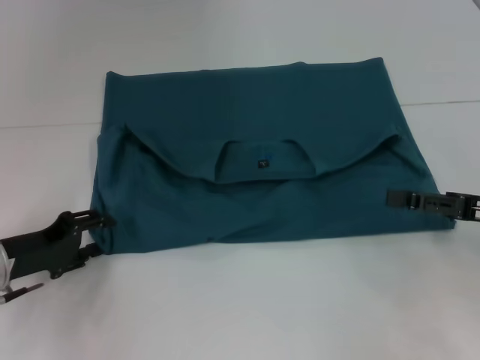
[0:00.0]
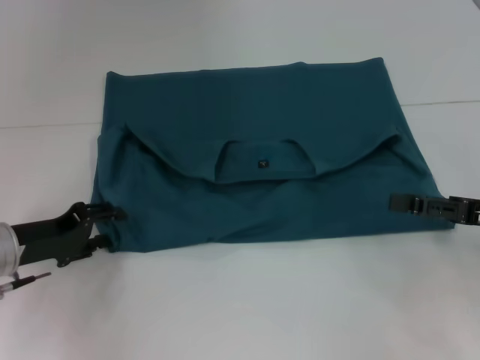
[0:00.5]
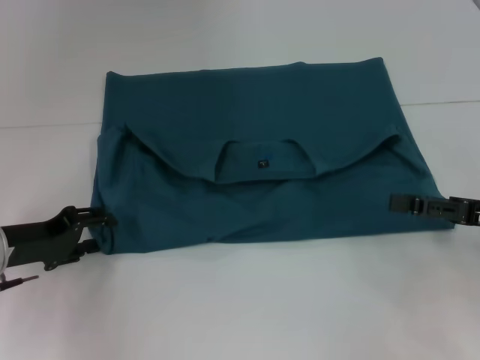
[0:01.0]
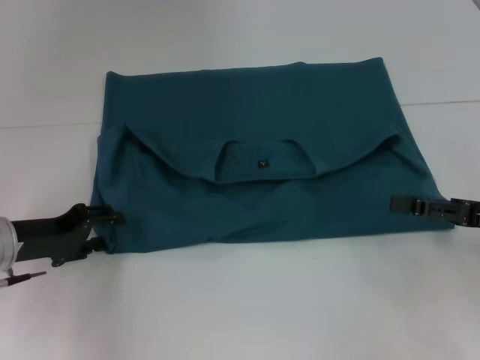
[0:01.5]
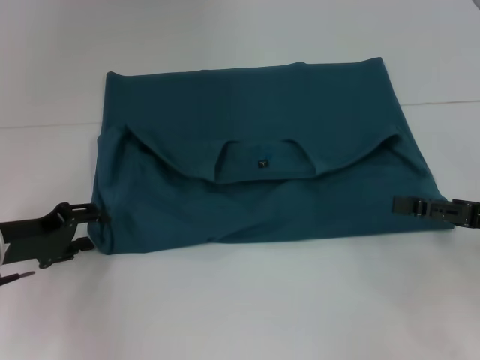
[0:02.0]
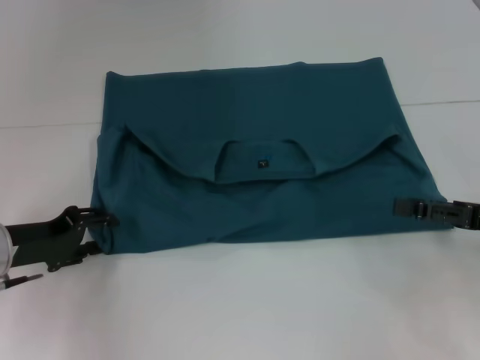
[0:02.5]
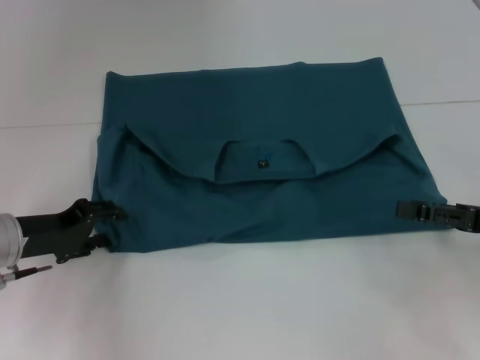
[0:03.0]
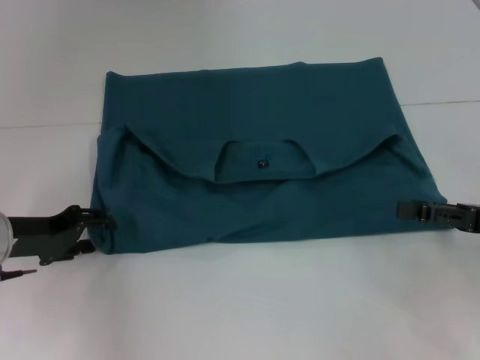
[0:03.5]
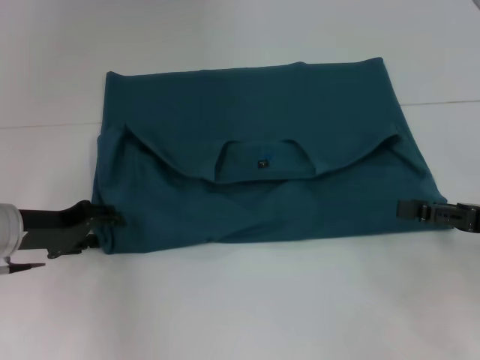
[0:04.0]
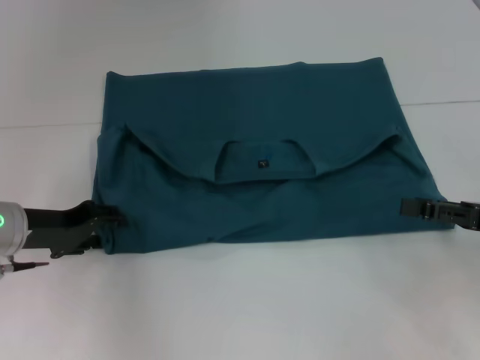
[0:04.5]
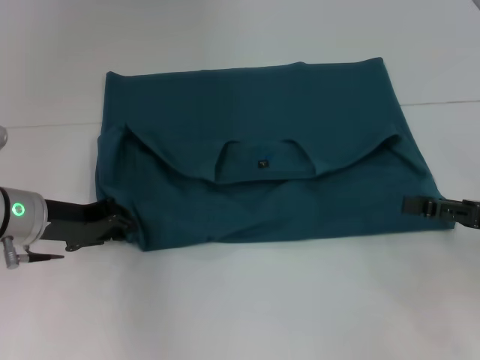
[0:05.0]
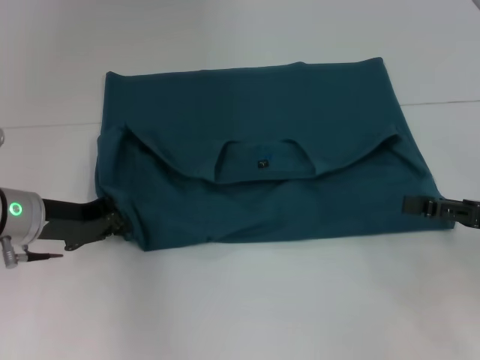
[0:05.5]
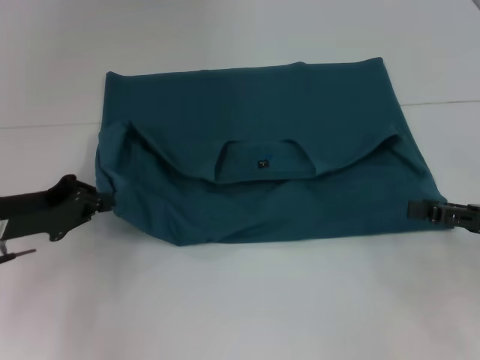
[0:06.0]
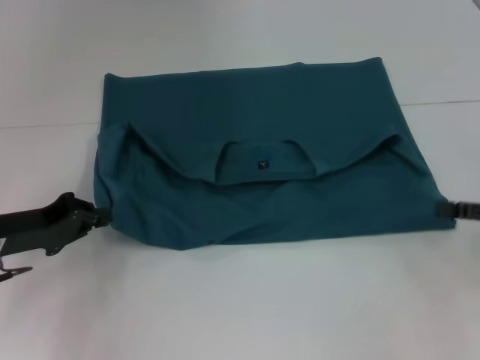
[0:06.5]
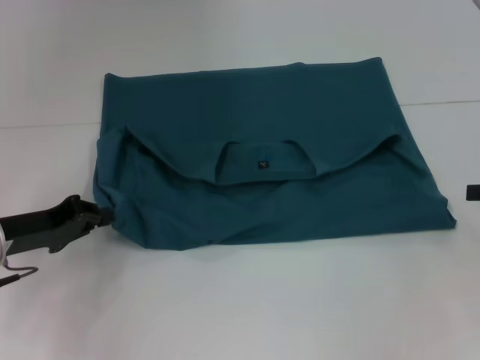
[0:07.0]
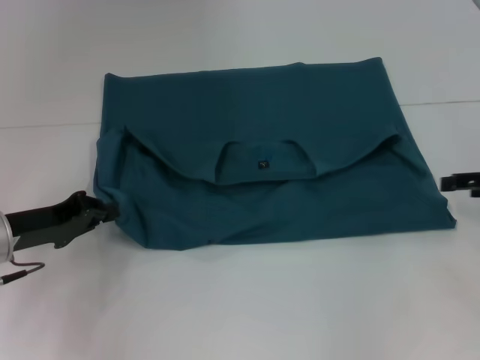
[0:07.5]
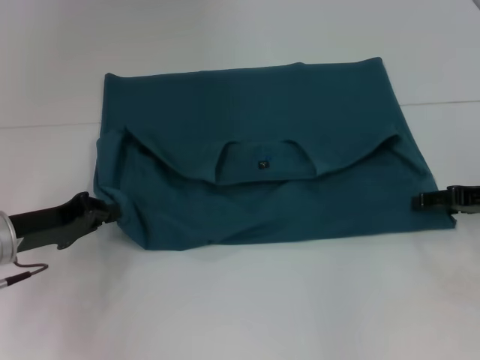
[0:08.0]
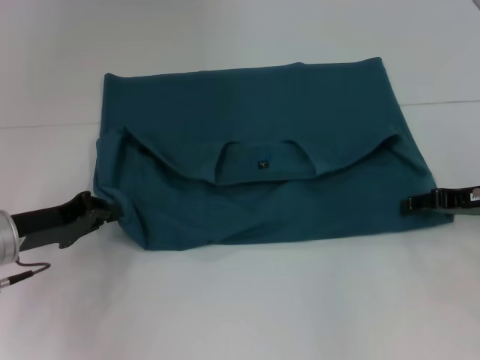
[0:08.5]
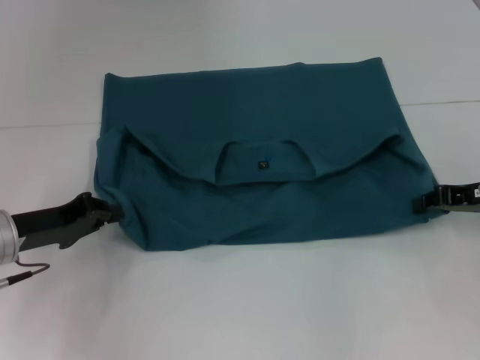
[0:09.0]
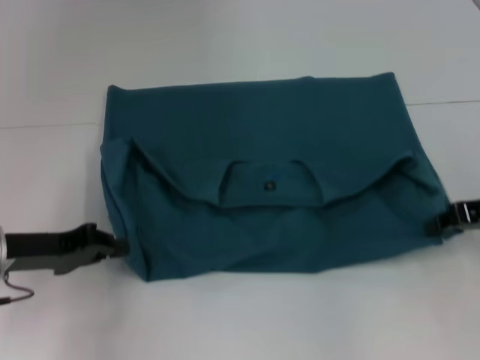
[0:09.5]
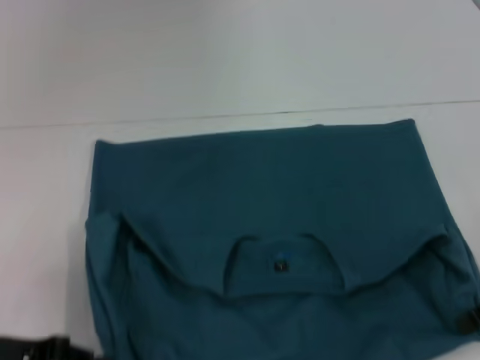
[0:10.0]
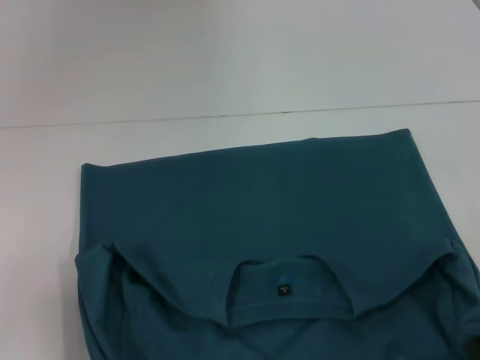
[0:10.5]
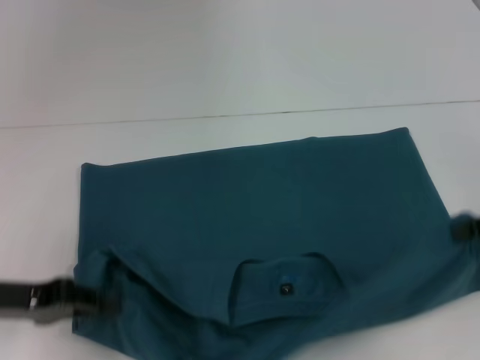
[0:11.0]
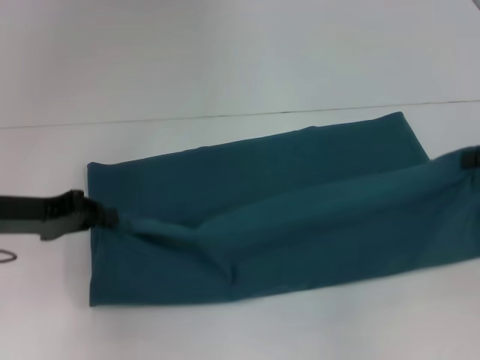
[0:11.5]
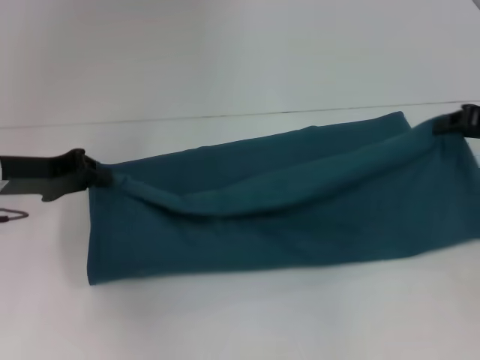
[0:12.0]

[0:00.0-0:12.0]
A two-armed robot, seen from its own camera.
Step, 0:00.0 to 0:10.5: Pull the clothes with your left hand.
Step, 0:00.0 to 0:10.5: Pull the clothes with your right hand.
0:00.0 to 0:02.0: The grippers stay close to where they were, moving slightly.
0:02.0 to 0:04.0: The grippers move only a little.
0:04.0 to 0:06.0: The left gripper closes up.
0:06.0 to 0:08.0: The right gripper heads forward, covering roughly 10 cm.
0:08.0 to 0:10.0: The grippers both shift backward by approximately 5 cm. The right gripper closes.
0:10.0 to 0:12.0: Both grippers travel together forward, approximately 10 cm.

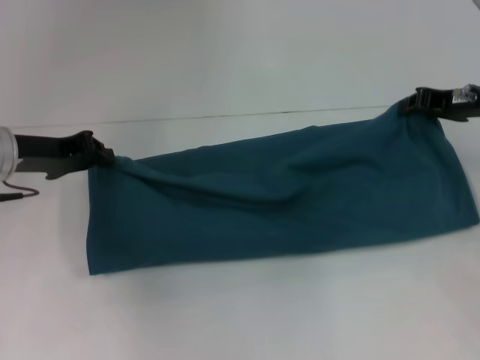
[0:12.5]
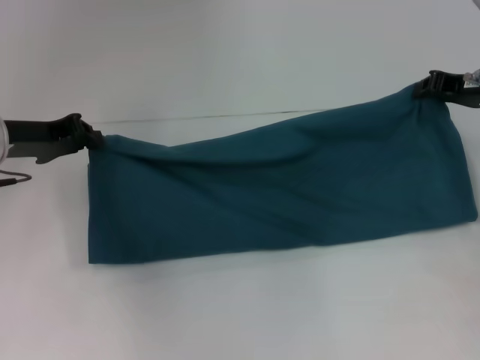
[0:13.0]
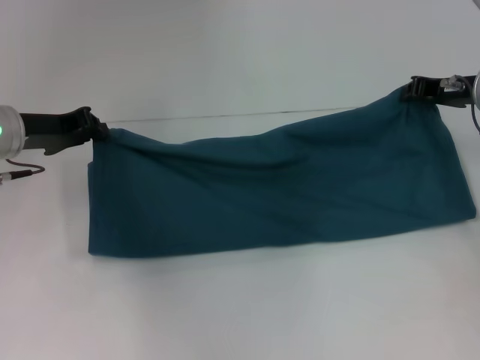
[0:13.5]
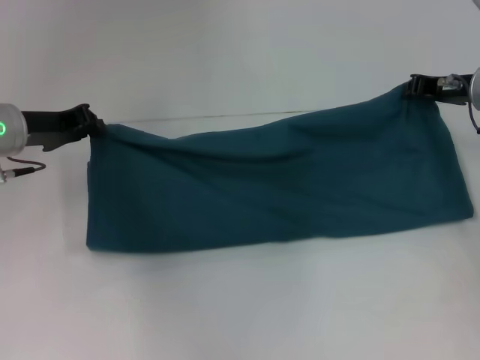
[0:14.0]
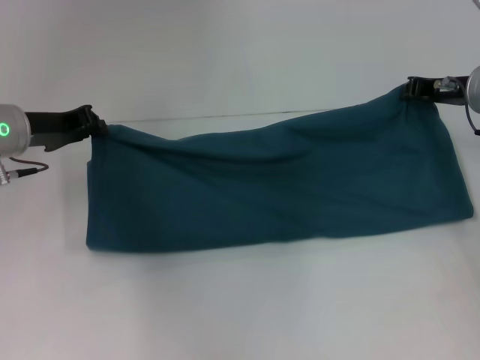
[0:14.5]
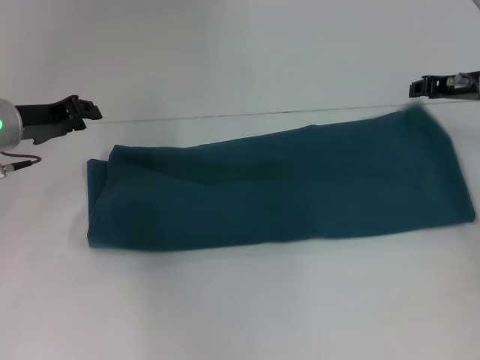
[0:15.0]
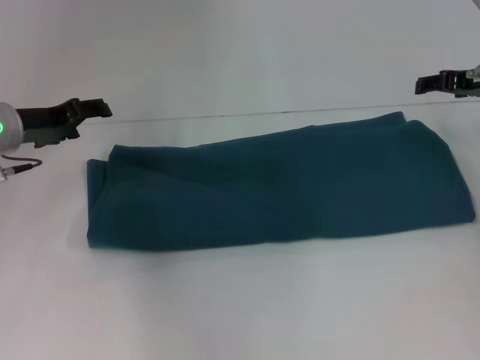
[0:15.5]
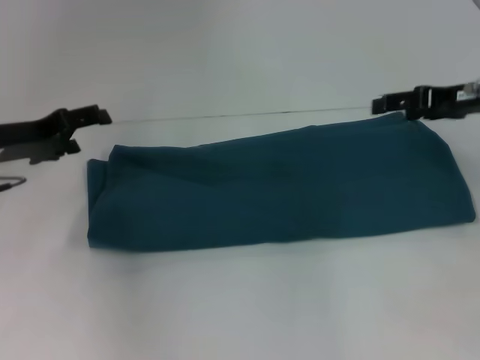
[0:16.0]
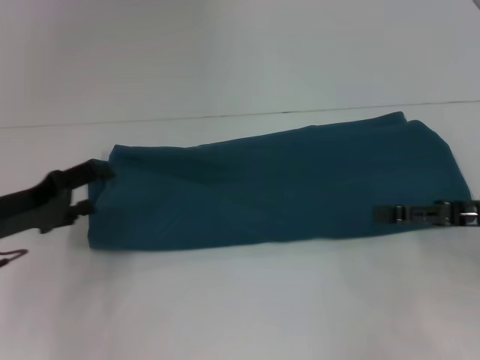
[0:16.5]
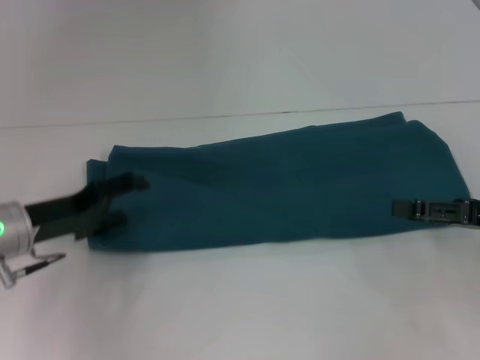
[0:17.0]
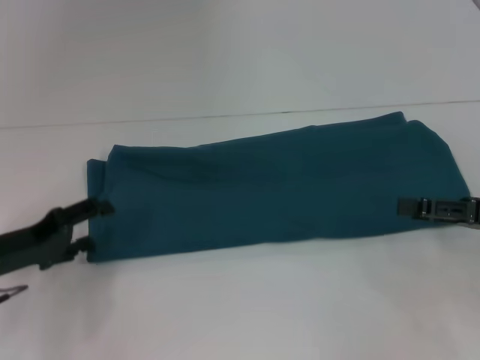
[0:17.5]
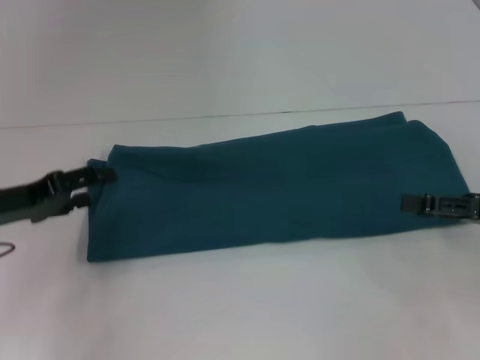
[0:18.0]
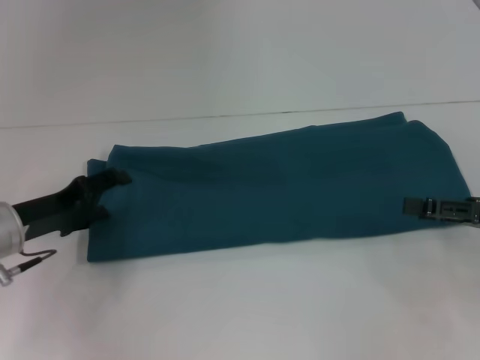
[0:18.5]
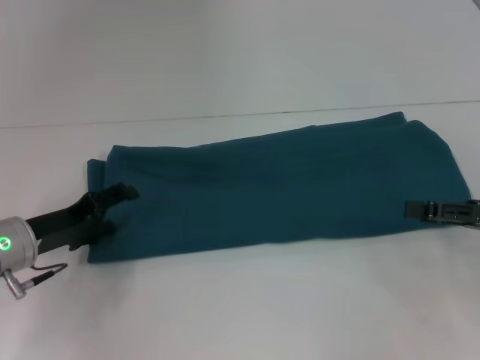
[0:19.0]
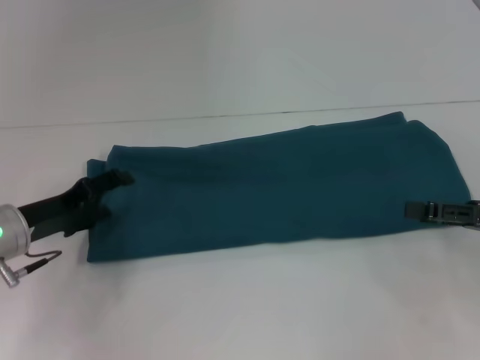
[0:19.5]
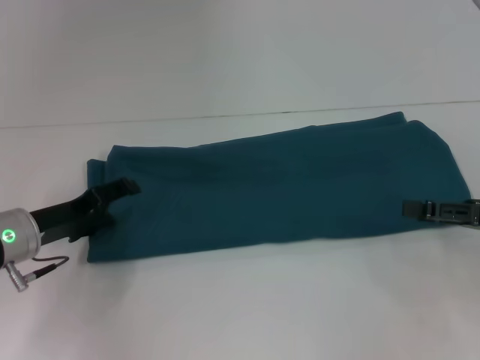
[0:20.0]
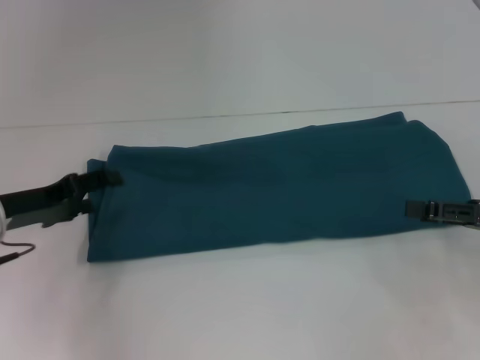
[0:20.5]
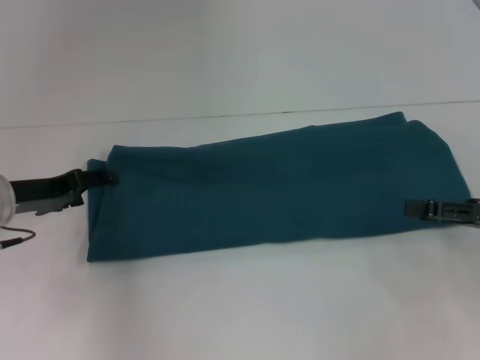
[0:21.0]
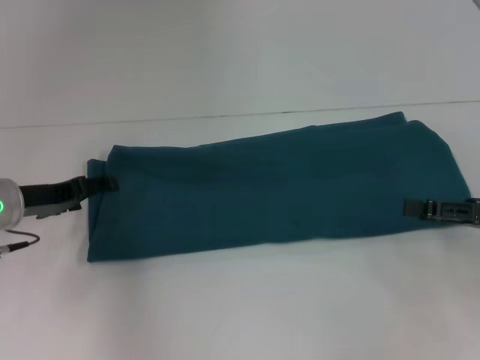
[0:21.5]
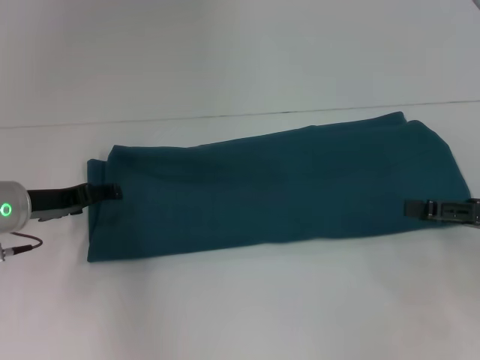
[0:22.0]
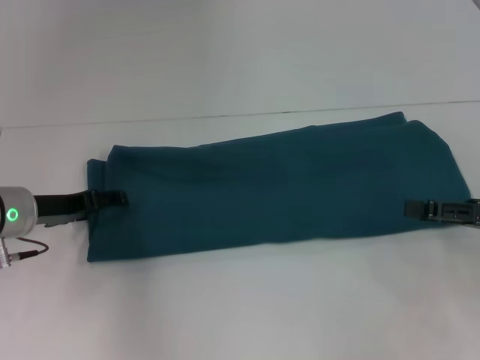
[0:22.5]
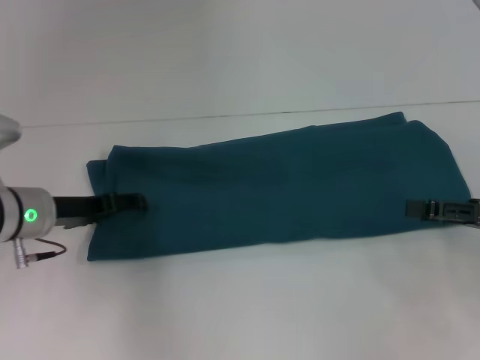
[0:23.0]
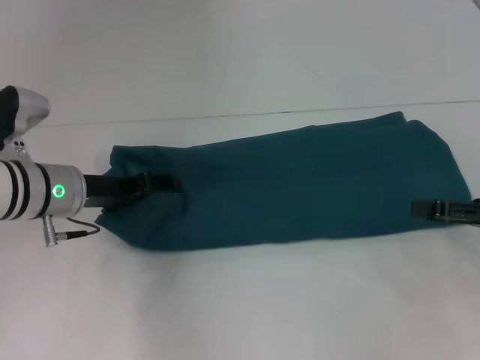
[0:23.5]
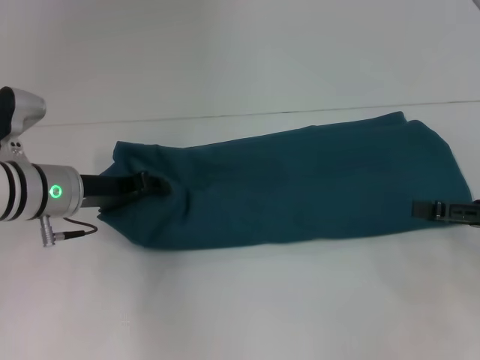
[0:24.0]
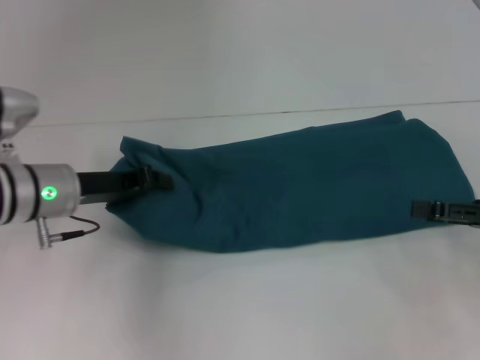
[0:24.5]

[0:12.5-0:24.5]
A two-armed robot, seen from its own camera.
Step, 0:12.5 to 0:14.5: Fold the clothes to the left.
0:12.5 to 0:14.5: The grippers move only a little.
0:14.5 to 0:16.5: Both grippers travel together backward, approximately 10 cm. The left gripper opens up. The right gripper opens up.
0:16.5 to 0:20.5: There are only small adjustments of the grippers.
0:20.5 to 0:22.5: The grippers move only a little.
0:22.5 to 0:24.5: The left gripper closes.

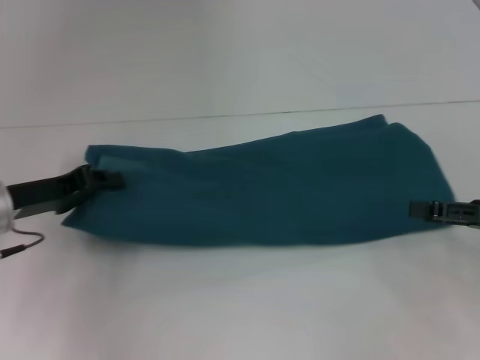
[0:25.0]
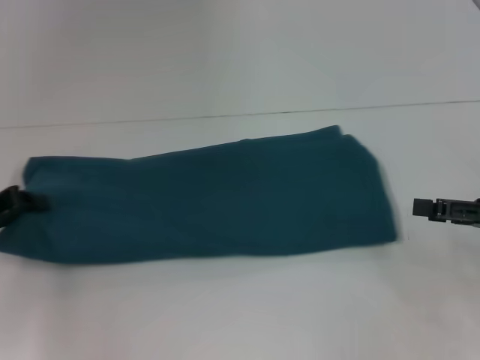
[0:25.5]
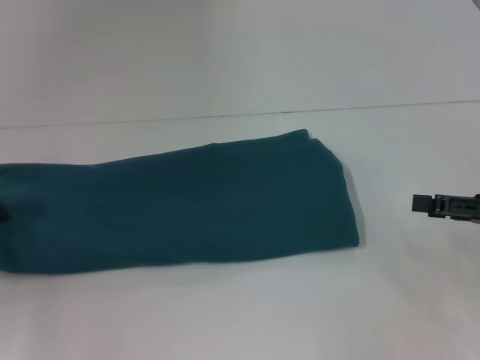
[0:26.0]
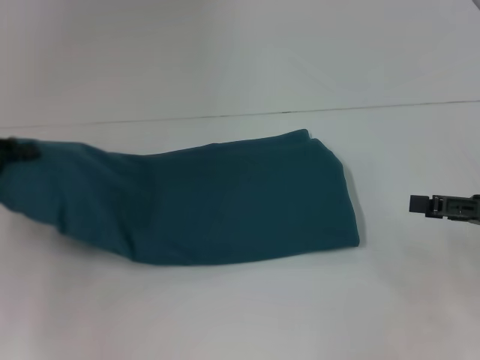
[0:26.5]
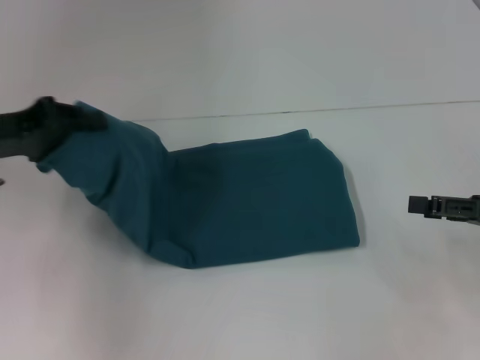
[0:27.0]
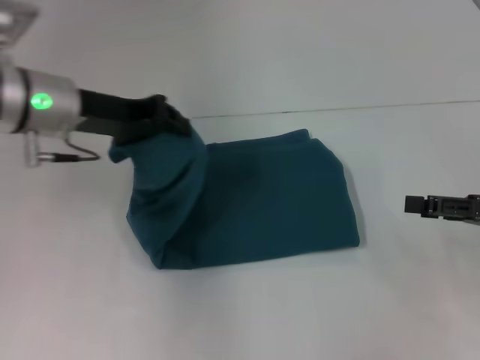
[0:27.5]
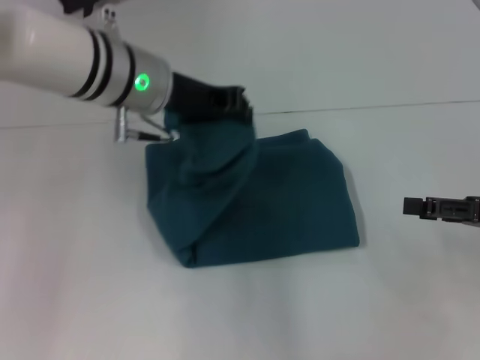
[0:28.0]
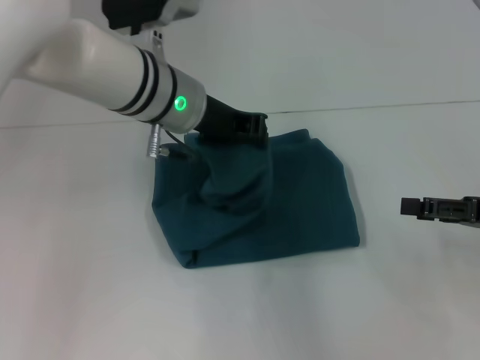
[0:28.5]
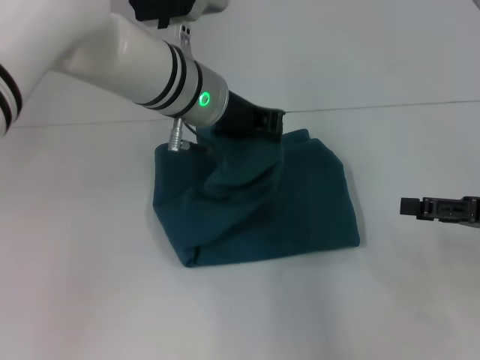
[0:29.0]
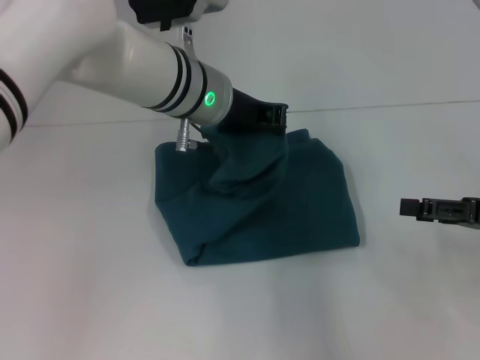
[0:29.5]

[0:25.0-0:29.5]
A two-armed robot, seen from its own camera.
0:25.0 to 0:27.0: The left gripper shifts some 10 cm upward, and travels to the left and back again, approximately 10 cm each way.
0:27.0 to 0:29.5: The left gripper goes approximately 25 cm to the right.
